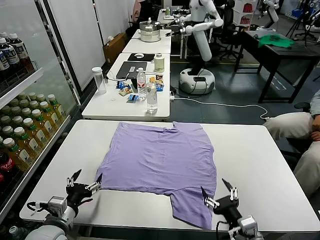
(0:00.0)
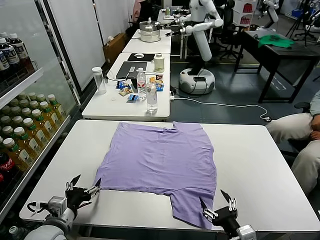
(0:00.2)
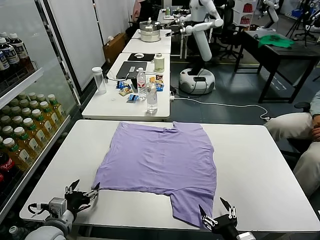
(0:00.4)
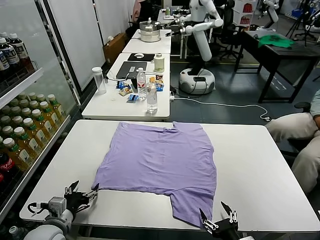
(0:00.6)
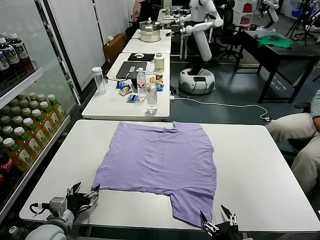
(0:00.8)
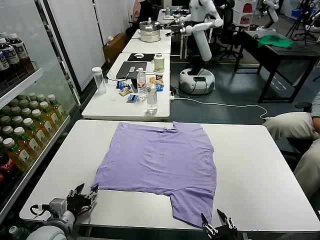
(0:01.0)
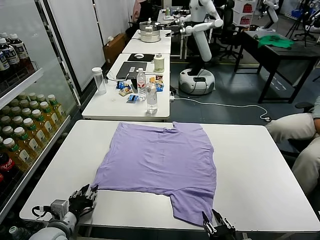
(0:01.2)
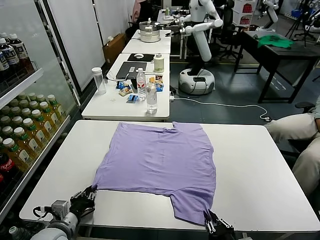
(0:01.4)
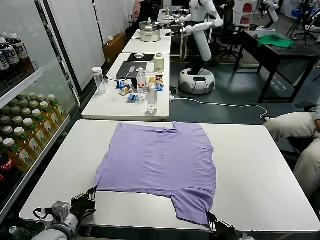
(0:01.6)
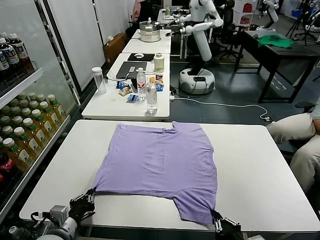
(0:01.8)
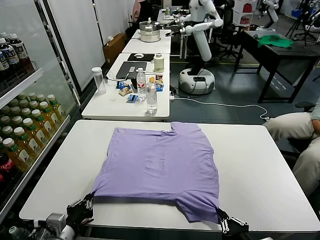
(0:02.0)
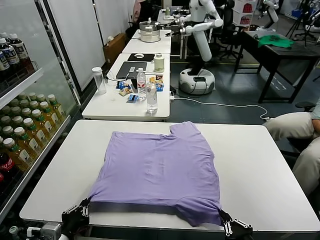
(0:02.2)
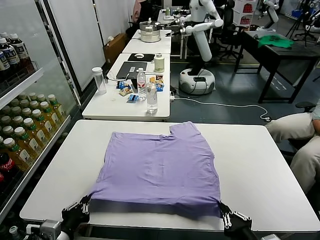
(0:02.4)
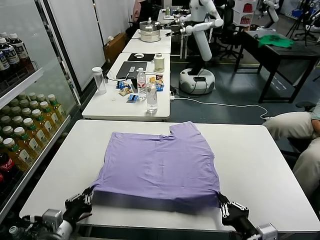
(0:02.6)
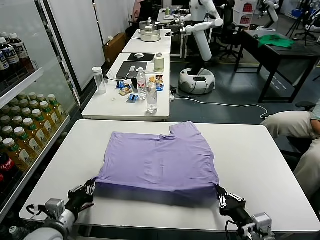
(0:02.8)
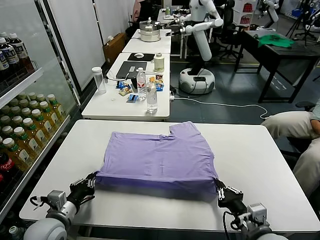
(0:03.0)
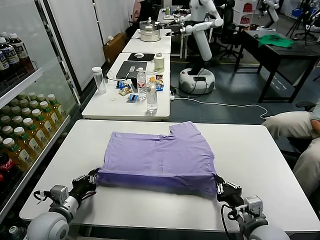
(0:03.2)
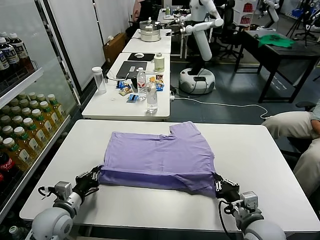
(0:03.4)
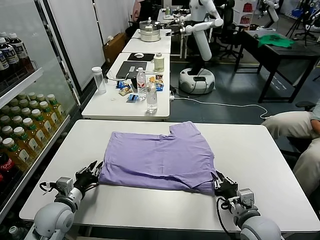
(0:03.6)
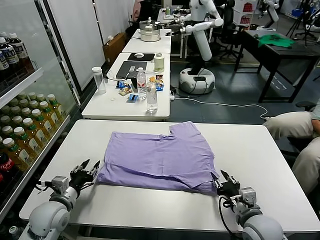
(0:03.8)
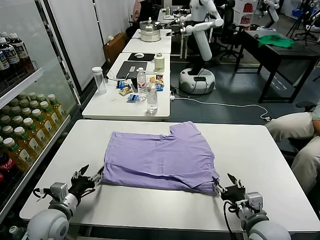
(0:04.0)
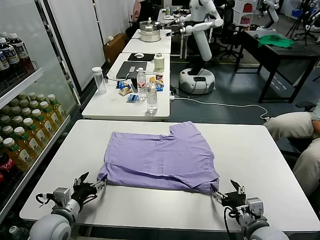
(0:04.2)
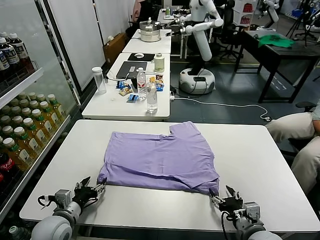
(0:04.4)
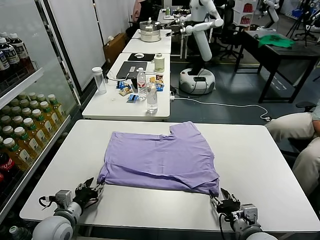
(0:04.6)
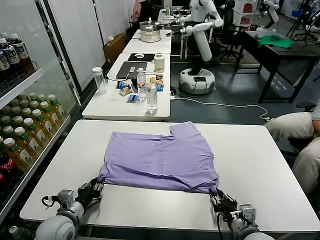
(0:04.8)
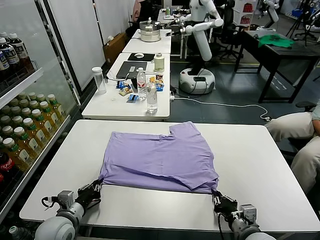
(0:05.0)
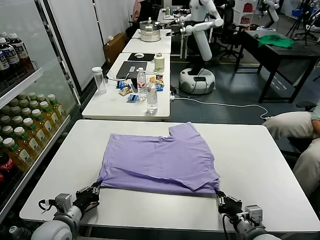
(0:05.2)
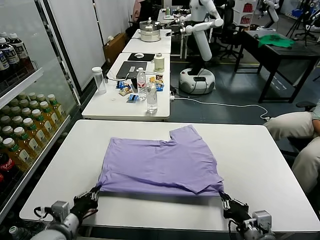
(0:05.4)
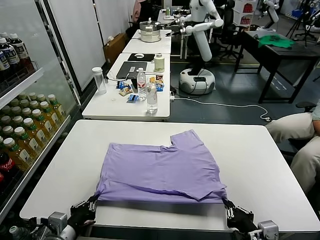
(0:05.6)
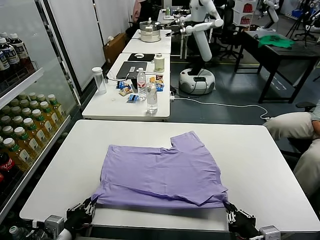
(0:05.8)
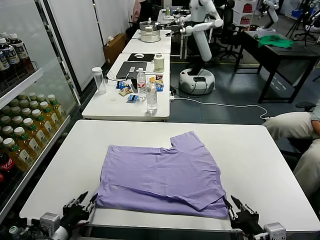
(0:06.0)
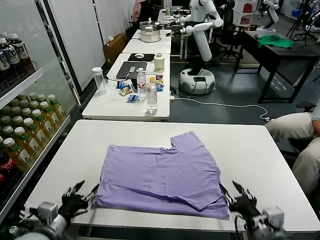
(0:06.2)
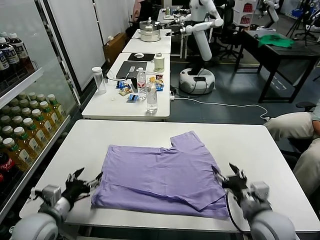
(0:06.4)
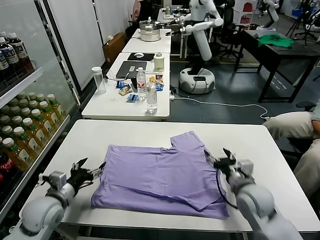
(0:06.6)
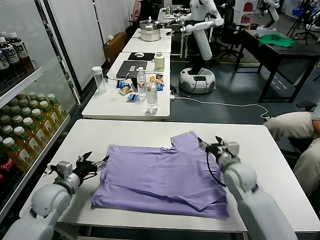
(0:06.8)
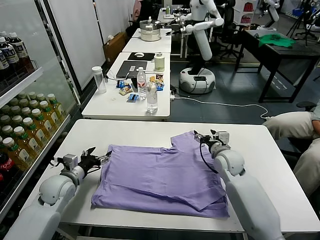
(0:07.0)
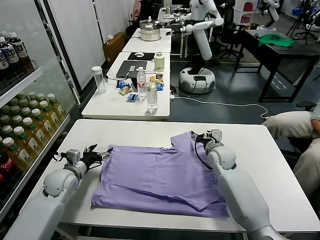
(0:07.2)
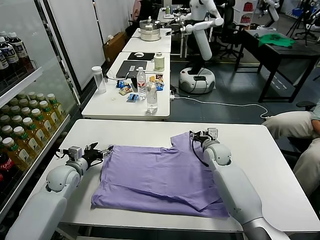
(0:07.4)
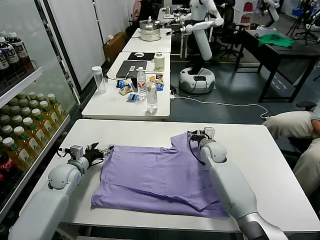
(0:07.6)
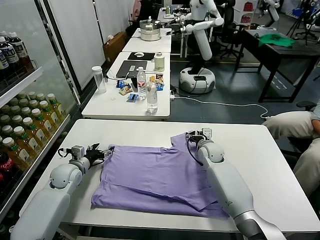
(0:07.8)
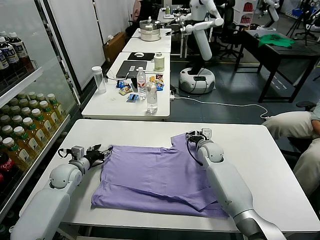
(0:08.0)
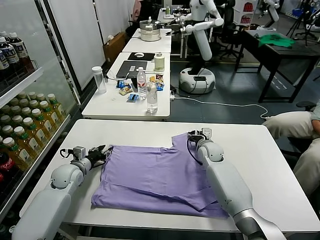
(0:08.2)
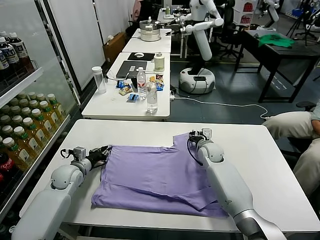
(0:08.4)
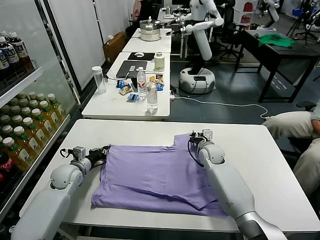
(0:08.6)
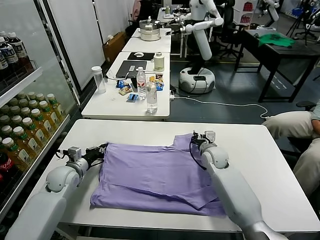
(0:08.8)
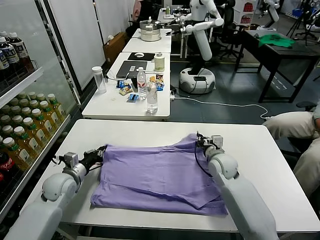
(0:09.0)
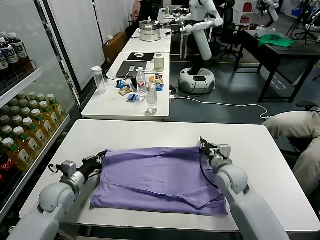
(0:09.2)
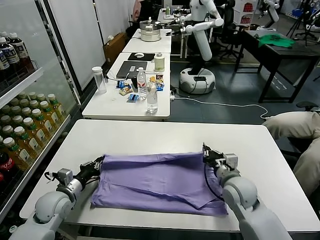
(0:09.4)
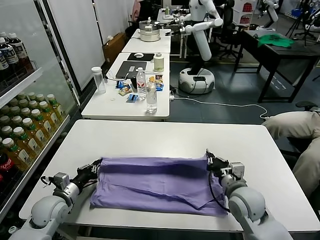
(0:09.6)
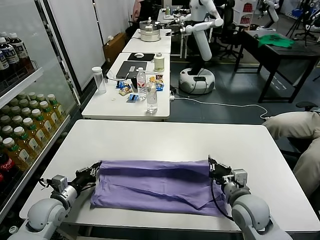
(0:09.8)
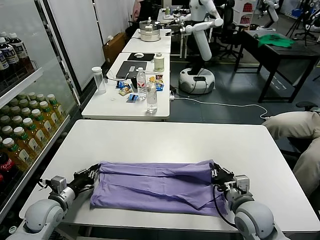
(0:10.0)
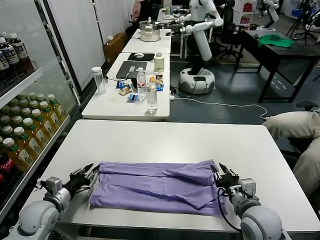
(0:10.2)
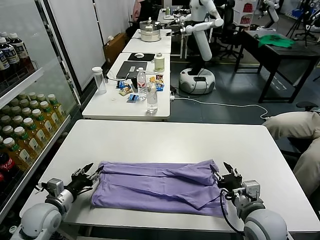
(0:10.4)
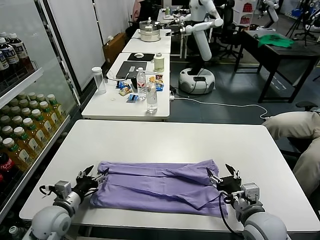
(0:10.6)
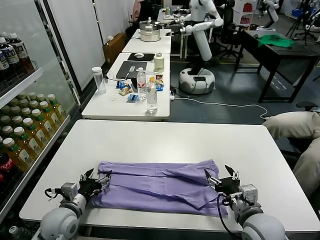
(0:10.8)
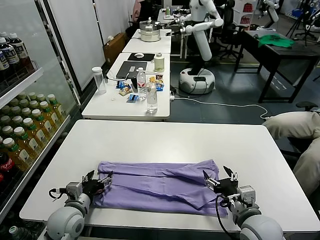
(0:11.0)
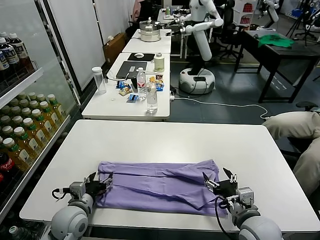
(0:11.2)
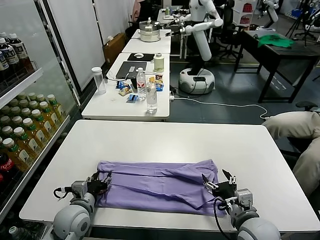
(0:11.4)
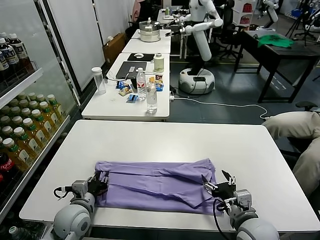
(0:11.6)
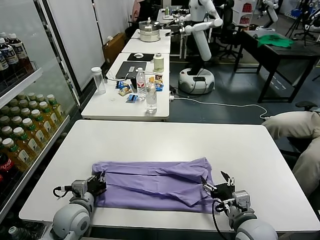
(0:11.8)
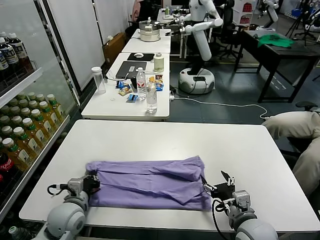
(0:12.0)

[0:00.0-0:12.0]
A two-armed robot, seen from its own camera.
Task of the whole recording: fold and organize the clothes.
Step, 0:00.0 to 0:01.6: use both grippers simultaneously to clamp the lower edge of the clothing fabric.
Step, 0:01.8 to 0:03.6: use both grippers to drag the lower edge of the fabric forward and fold it over the upper edge.
Step, 0:03.8 to 0:06.2: Drag the clothes downward with both gripper.
Step, 0:06.4 to 0:08.6: use both grippers simultaneously to clamp the upper edge of the clothing fabric.
Step, 0:08.8 to 0:10.2: use both grippers to drag the upper edge of the fabric backward and fold it over the lower edge.
Step, 0:10.4 to 0:11.8: use the left gripper to clamp the left edge of the fabric.
0:01.6 to 0:03.0: The right gripper moves forward, about 10 cm. The left gripper moves approximately 5 cm backward and comes back.
0:03.0 to 0:04.4: The right gripper opens its fingers; the left gripper opens up.
0:04.4 to 0:06.0: The right gripper shifts some 10 cm upward and backward, and closes, then opens again, while the left gripper moves backward and upward, some 10 cm, and closes and opens again.
0:06.0 to 0:07.6: Both grippers travel together forward, approximately 35 cm. The right gripper opens its fingers, while the left gripper opens its fingers.
0:07.6 to 0:09.0: The left gripper closes up; the right gripper is displaced backward by roughly 10 cm, and closes.
0:09.0 to 0:10.4: The right gripper travels backward by about 20 cm, and opens up, while the left gripper heads backward, covering some 10 cm, and opens.
0:10.4 to 0:12.0: The left gripper moves to the right, roughly 5 cm, and closes.

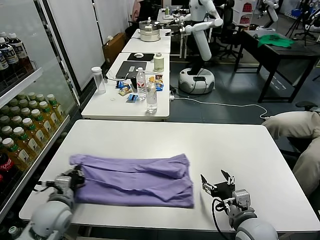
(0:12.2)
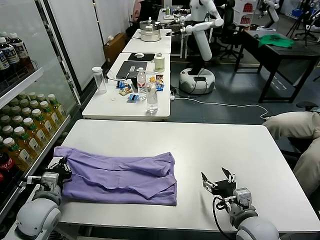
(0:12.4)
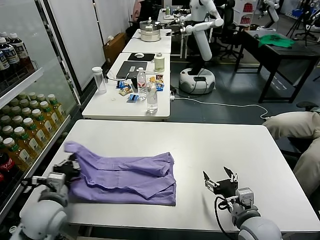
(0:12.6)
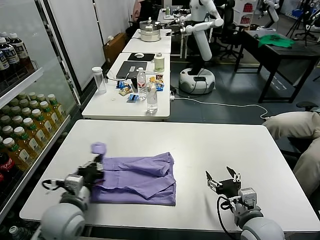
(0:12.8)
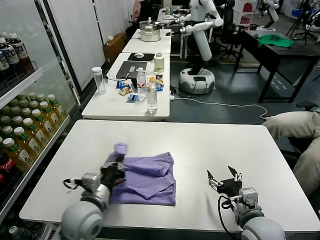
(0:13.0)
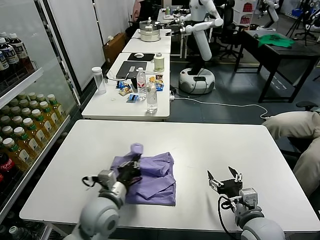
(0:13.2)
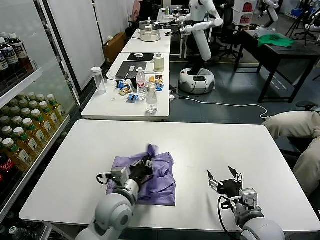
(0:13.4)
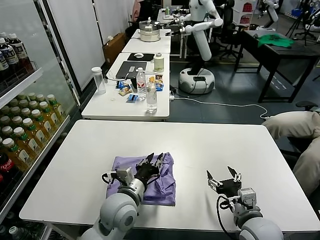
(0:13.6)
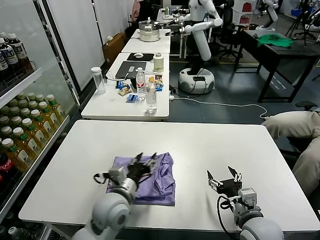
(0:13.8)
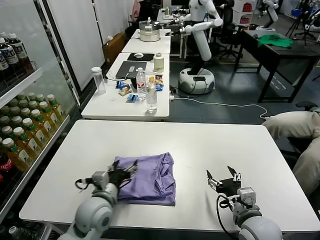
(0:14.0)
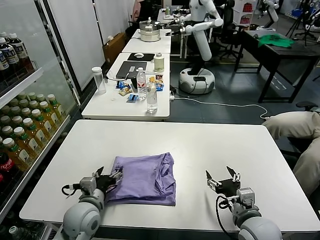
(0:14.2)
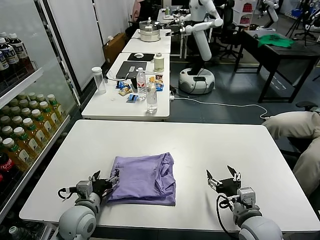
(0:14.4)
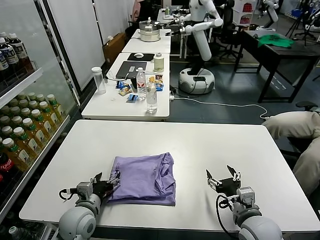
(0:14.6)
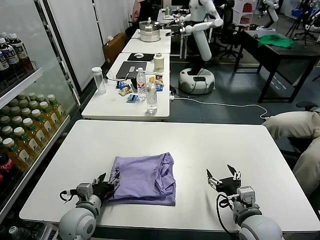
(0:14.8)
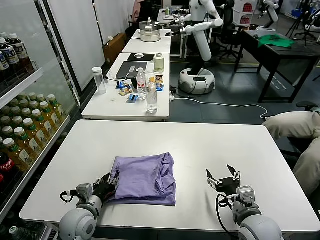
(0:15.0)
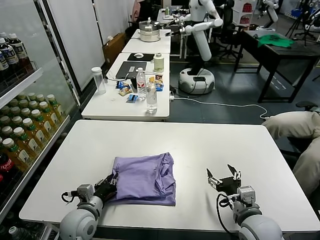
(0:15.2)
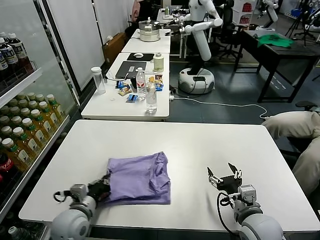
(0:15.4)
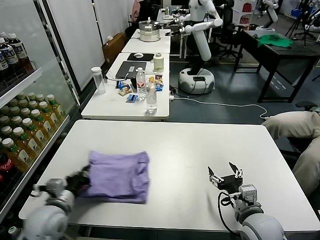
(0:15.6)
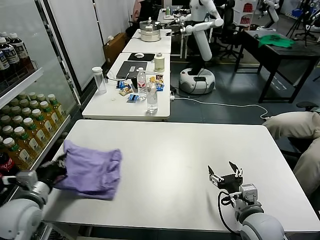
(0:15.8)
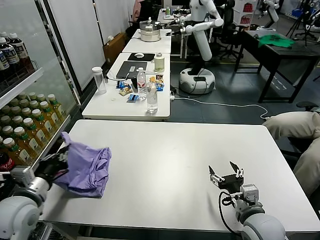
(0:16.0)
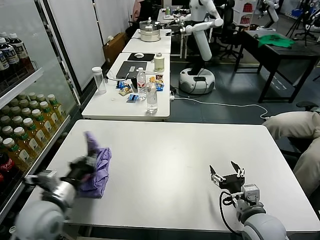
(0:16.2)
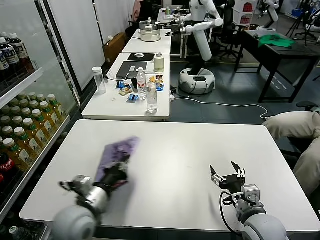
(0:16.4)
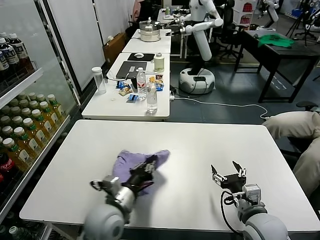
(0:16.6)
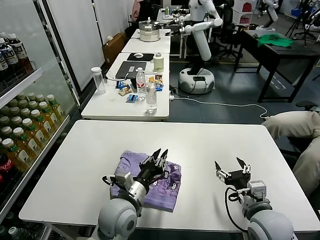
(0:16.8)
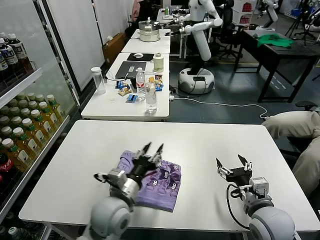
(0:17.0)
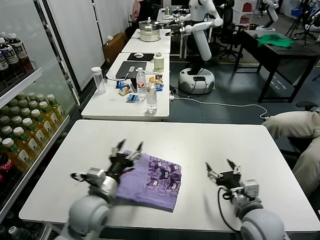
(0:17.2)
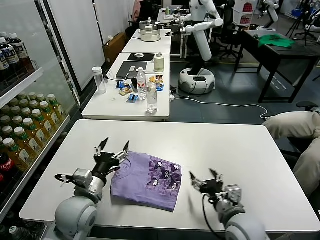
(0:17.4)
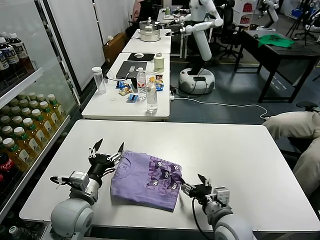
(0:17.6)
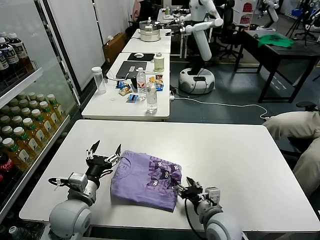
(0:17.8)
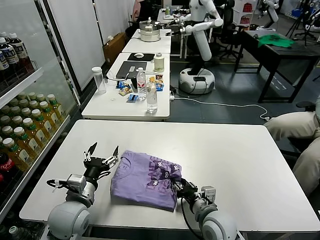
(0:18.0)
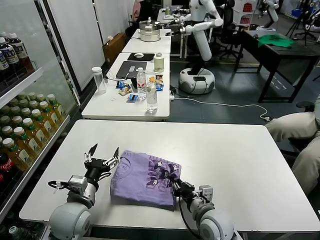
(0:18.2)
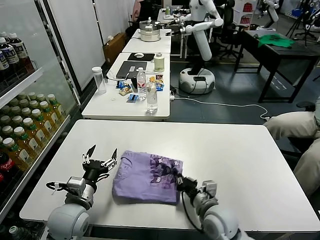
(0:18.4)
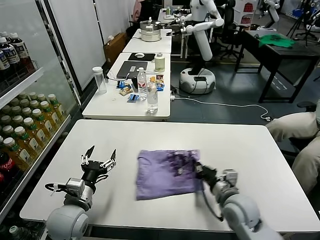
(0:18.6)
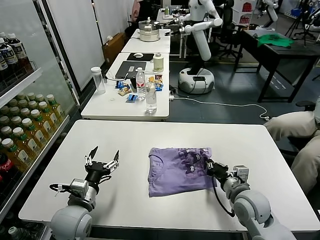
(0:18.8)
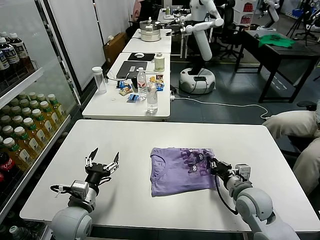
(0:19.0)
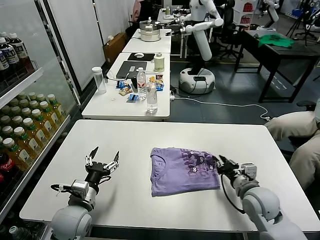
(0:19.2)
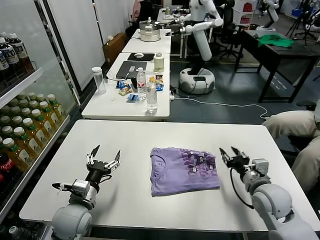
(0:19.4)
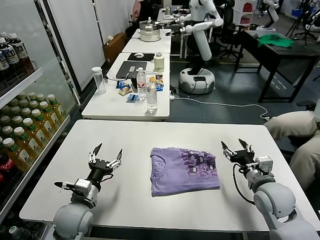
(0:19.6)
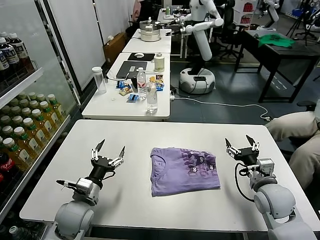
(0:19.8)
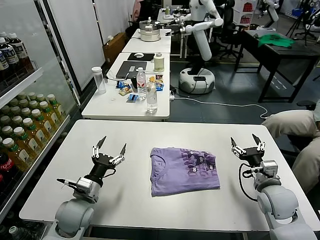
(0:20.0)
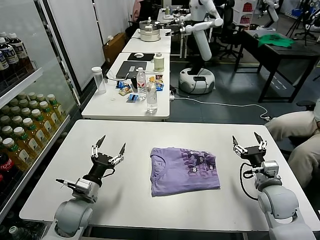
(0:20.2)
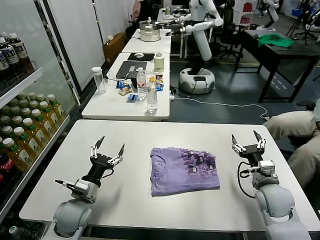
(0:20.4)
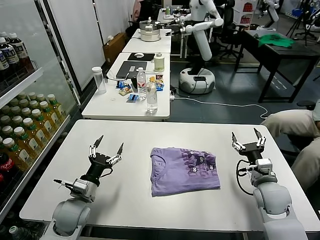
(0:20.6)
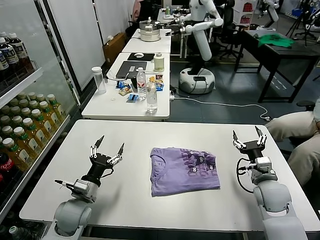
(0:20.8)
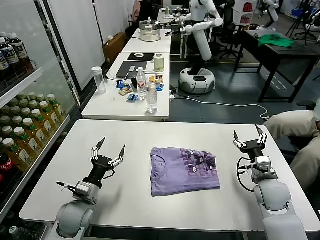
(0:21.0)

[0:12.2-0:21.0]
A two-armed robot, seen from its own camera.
Task of the whole recording: fold and organize the clothes.
Step, 0:12.2 to 0:13.6: use the left gripper to drag the left edge of the fabric to the left and folds it over the right edge.
Step, 0:13.8 to 0:16.8: Flip the folded clothes over with left gripper.
Step, 0:17.0 to 0:19.4: Drag the clothes to the center of the table.
0:12.2 to 0:13.6: The left gripper shifts some 20 cm to the right, and opens.
0:13.6 to 0:15.2: The left gripper shifts roughly 15 cm to the left and downward, and opens and closes again.
0:15.2 to 0:16.6: The left gripper shifts about 10 cm to the right and upward.
0:16.6 to 0:18.0: The left gripper goes roughly 10 cm to the left, and opens, while the right gripper goes approximately 10 cm to the left and downward, and closes up.
0:18.0 to 0:19.6: The right gripper is displaced to the right and upward by roughly 15 cm, and closes, then reopens.
0:19.6 to 0:21.0: The right gripper changes place by approximately 5 cm.
